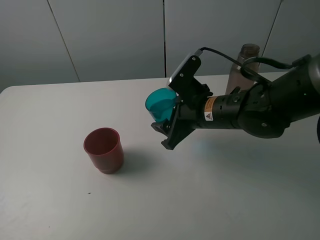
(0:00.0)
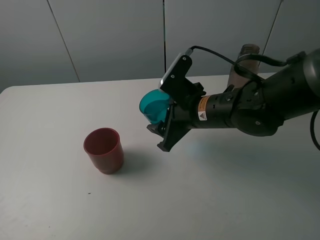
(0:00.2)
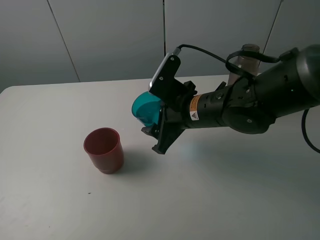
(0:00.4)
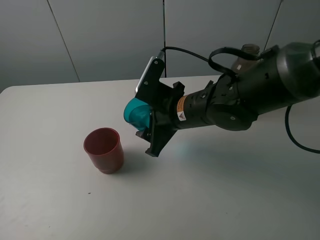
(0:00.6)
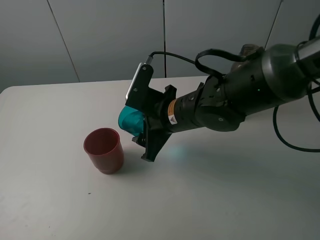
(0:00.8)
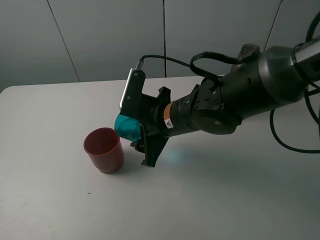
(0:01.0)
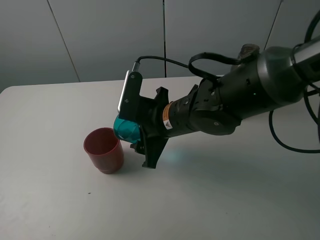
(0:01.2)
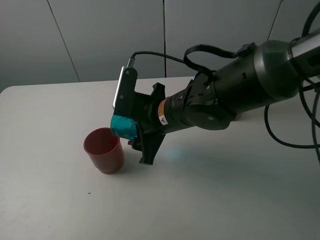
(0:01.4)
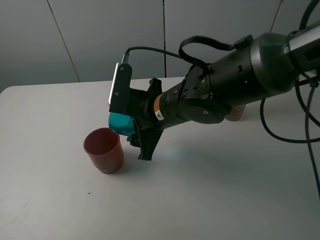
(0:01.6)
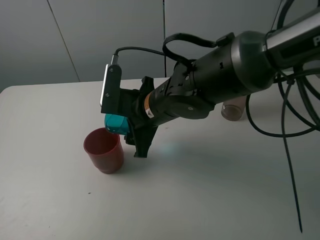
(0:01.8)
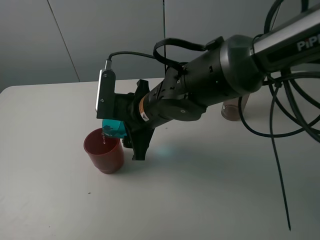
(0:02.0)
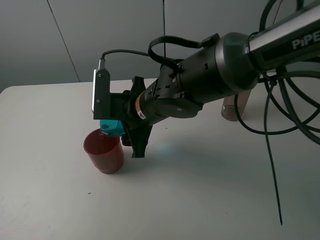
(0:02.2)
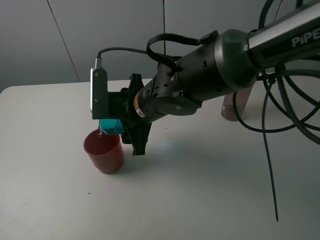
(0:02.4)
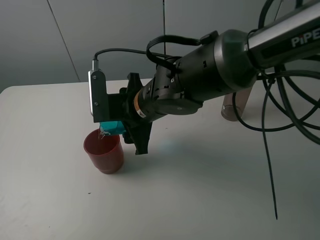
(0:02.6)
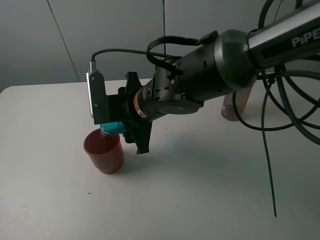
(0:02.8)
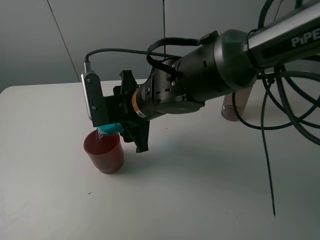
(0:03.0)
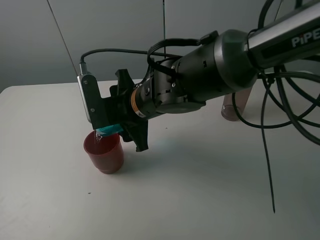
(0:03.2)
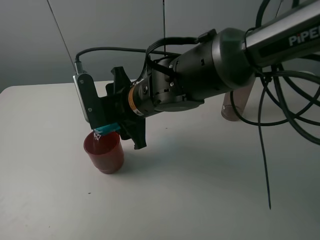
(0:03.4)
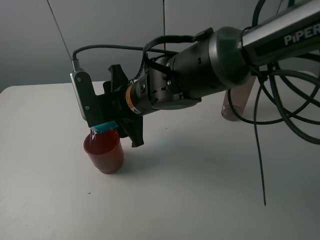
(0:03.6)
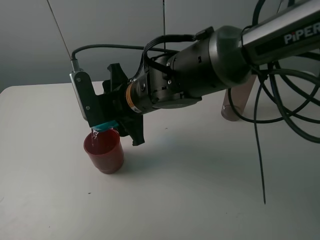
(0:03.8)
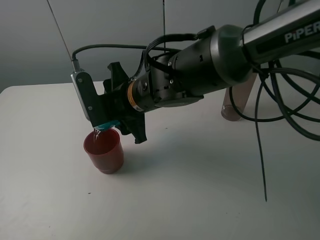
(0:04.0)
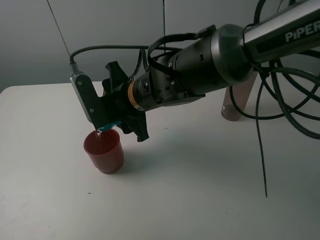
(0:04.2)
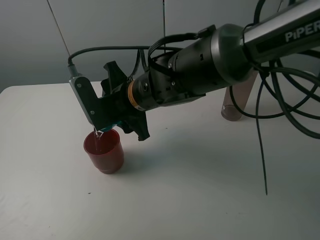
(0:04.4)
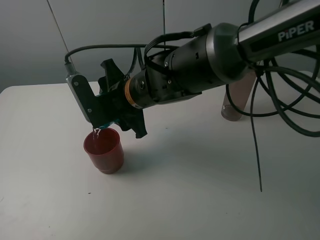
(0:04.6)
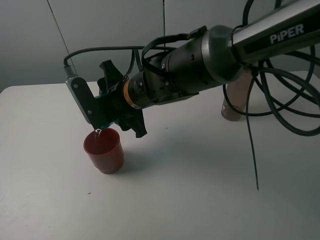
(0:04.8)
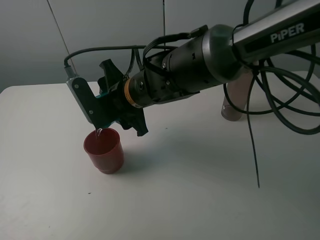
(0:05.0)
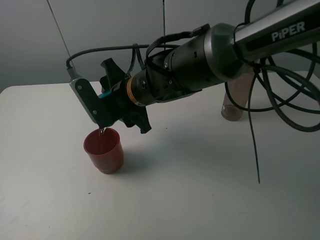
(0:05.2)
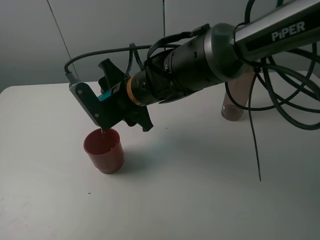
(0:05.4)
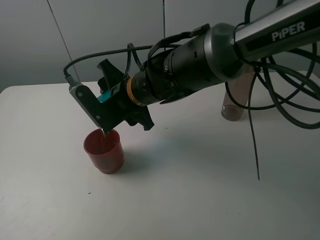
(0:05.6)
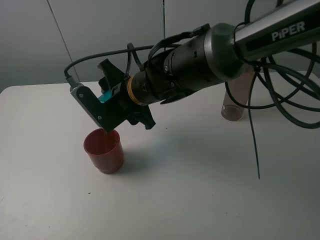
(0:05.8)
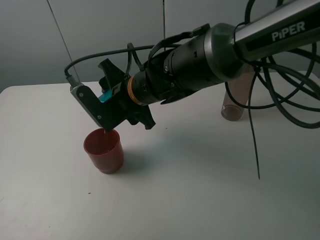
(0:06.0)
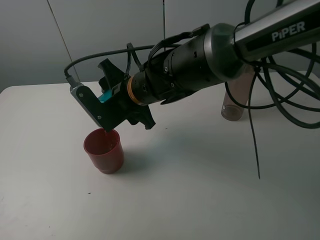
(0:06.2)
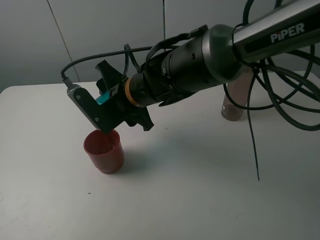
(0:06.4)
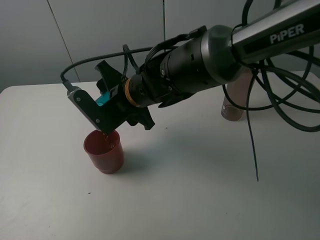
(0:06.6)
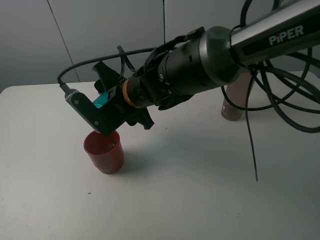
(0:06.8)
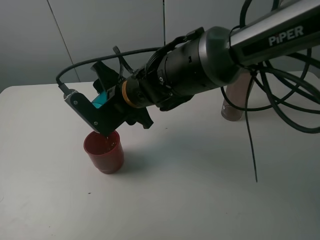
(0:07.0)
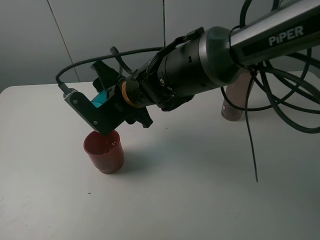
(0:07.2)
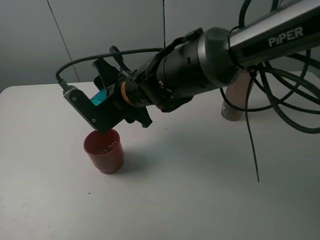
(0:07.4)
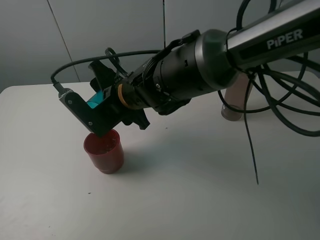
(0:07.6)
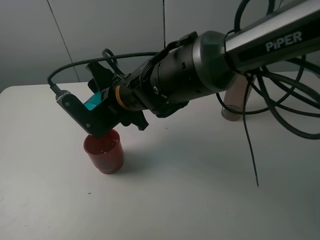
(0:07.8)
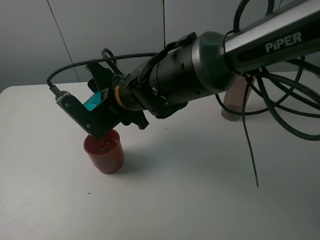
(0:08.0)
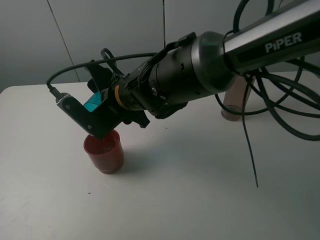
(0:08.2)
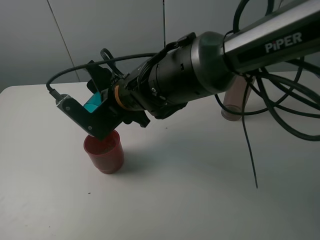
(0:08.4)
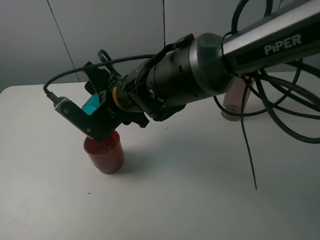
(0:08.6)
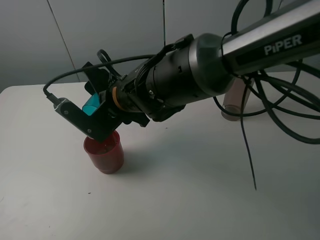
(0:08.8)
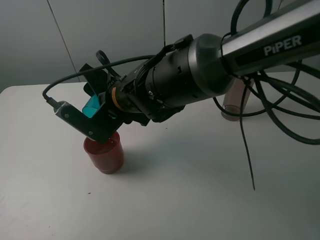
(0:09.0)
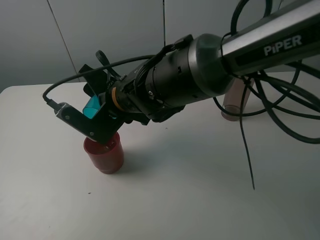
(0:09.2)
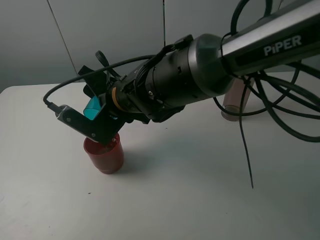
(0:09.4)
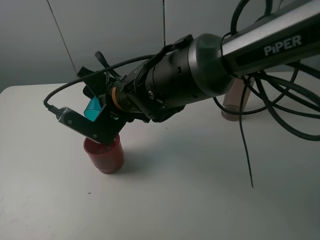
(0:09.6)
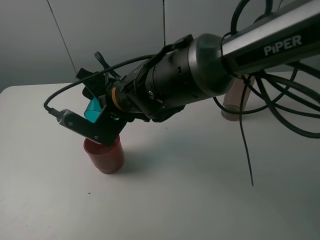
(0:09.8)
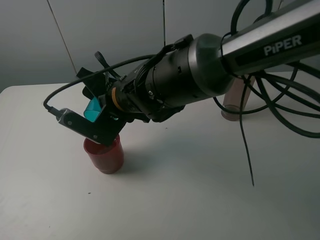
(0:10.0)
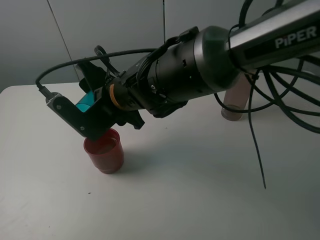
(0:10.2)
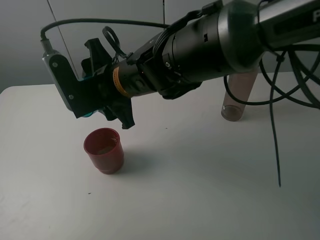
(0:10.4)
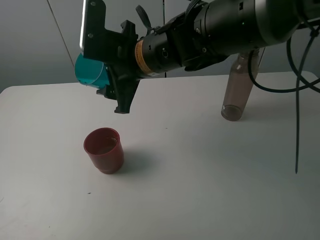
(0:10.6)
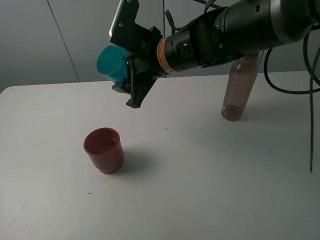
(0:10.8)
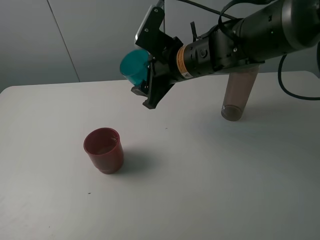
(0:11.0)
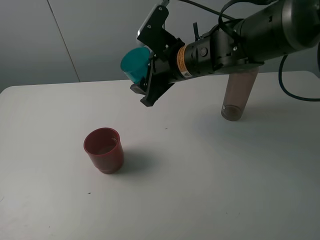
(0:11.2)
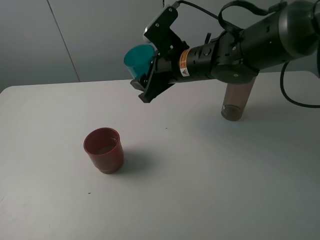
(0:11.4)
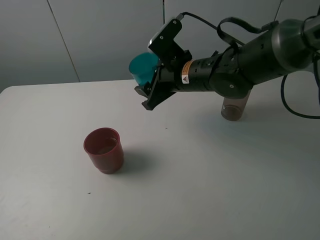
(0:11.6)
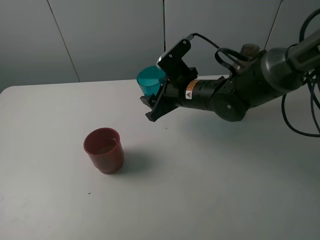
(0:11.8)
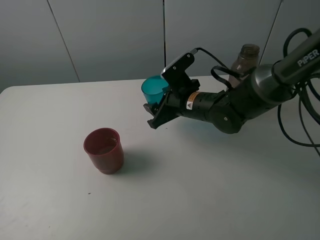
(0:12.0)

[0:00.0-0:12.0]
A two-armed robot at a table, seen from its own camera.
Task of the whole recording: pick up the bottle and pour water into the cup, then pick up the cup containing water and pour it into another cup.
Step, 0:00.0 to 0:10.4: Pour water from blue cup to red cup with the right gripper.
0:00.0 to 0:01.6: The right gripper heads to the left, covering some 10 cm.
0:03.0 to 0:04.4: The grippers move only a little.
0:04.4 to 0:07.6: There are only small adjustments of the grippers.
0:07.6 to 0:09.0: The grippers make only small movements.
0:10.4 to 0:12.0: The right gripper moves to the right and downward, roughly 15 cm.

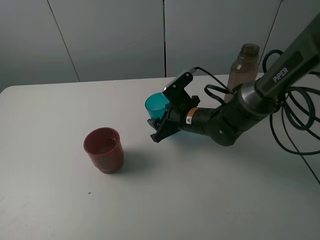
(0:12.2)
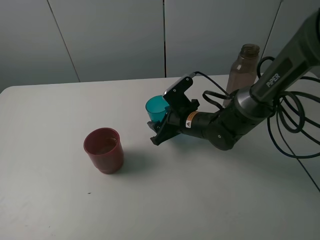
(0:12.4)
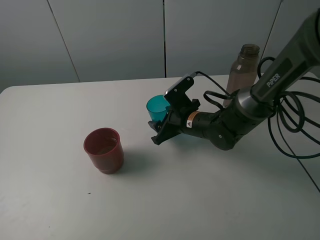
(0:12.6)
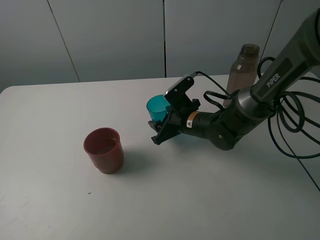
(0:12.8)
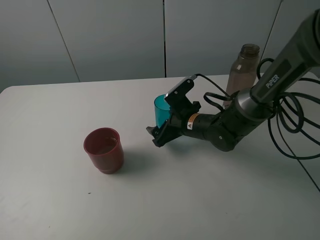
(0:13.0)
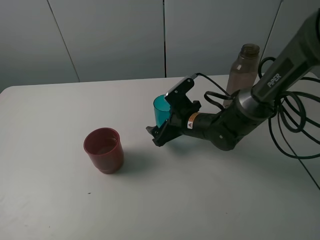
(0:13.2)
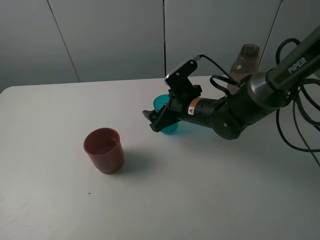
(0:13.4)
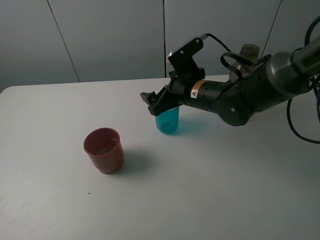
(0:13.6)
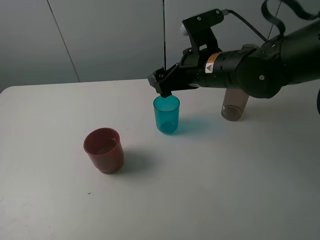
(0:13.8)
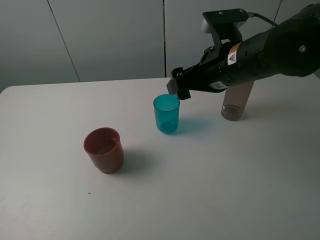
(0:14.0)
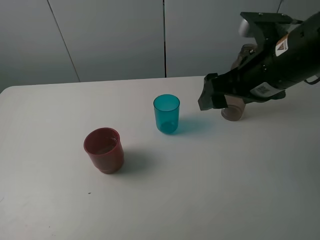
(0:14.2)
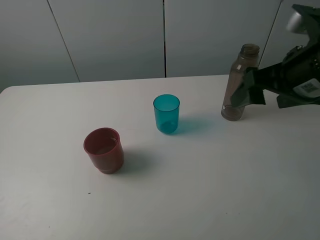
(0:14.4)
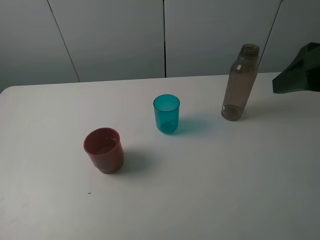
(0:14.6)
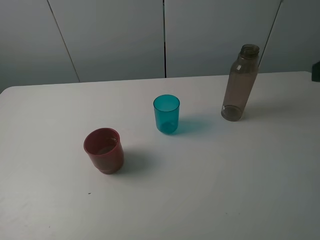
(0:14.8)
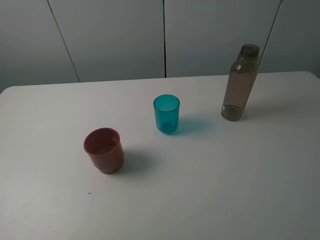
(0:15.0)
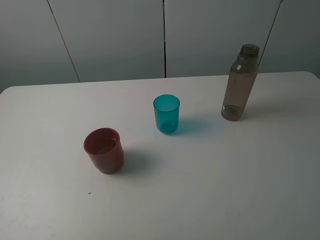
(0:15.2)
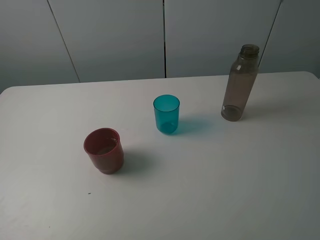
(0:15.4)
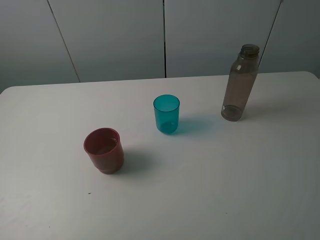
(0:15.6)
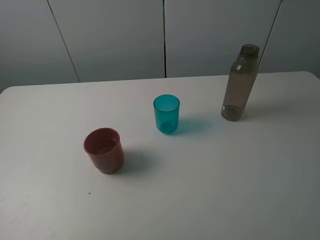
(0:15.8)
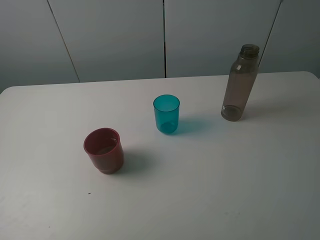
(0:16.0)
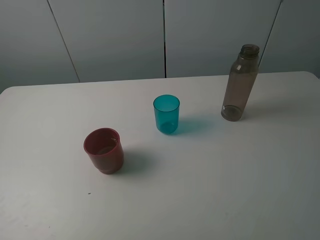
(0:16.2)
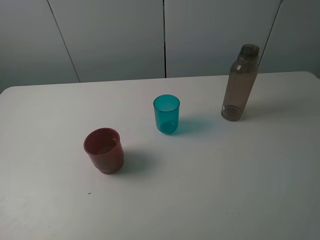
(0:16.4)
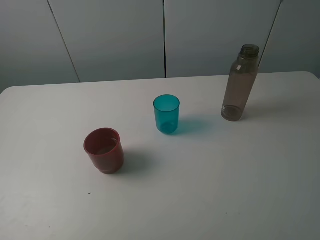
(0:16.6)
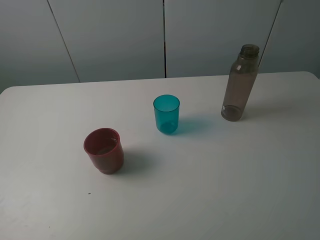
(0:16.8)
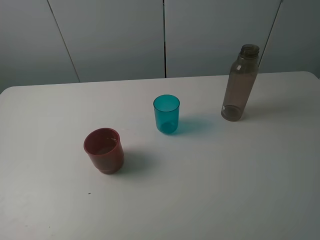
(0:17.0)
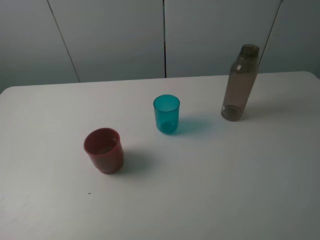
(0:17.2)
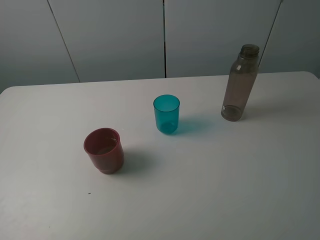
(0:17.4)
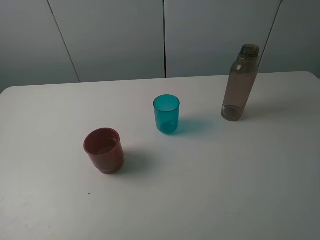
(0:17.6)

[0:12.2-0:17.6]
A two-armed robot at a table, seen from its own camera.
Task of the whole recording: pick up the bottle and pour water into the cup, then pick up the cup containing water and pour it into another cup.
0:12.2 to 0:13.6: The right gripper goes roughly 10 cm upward, and opens up.
0:13.6 to 0:15.0: The right gripper shifts roughly 40 cm backward, to the right and upward.
